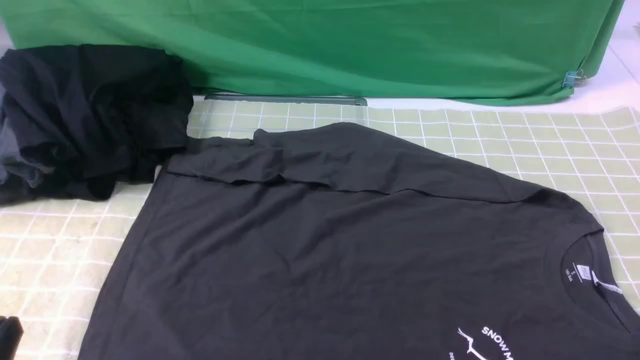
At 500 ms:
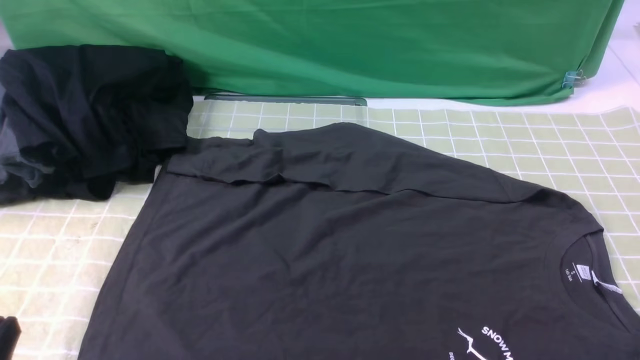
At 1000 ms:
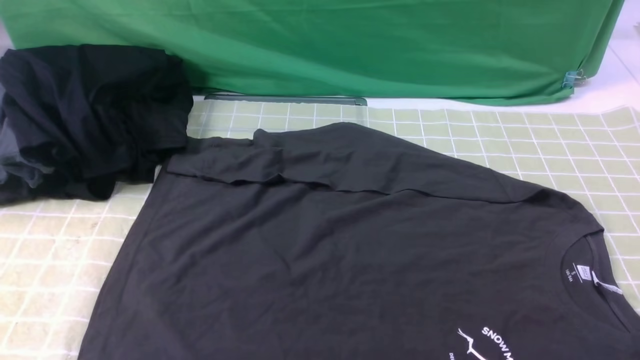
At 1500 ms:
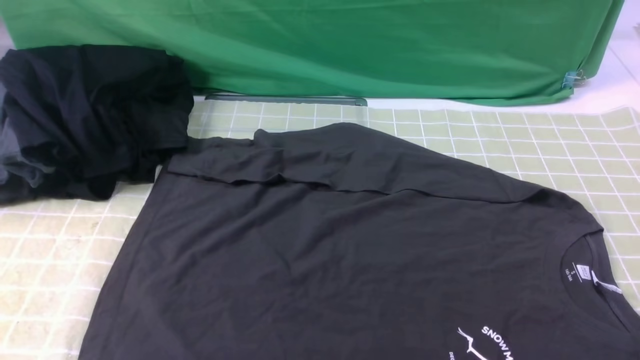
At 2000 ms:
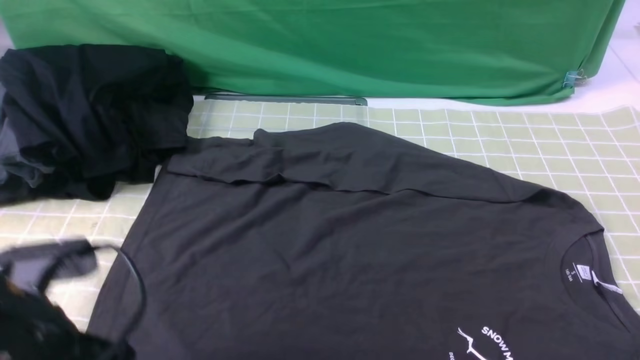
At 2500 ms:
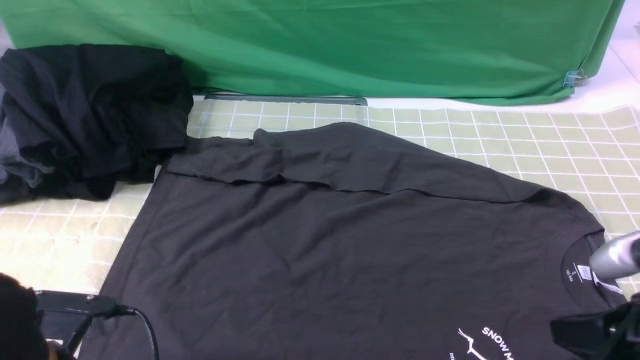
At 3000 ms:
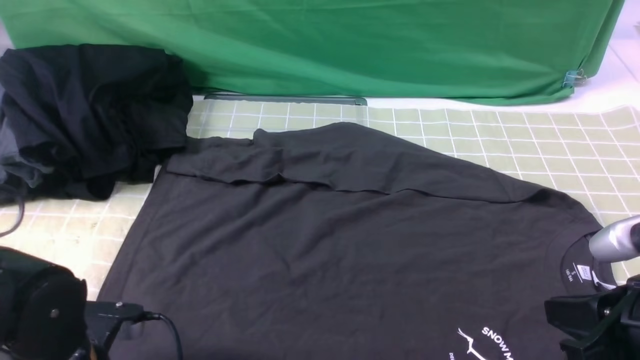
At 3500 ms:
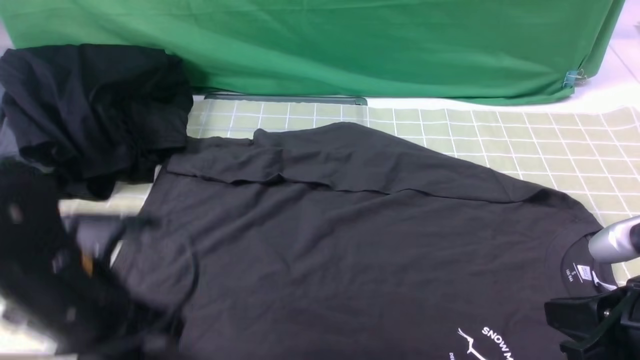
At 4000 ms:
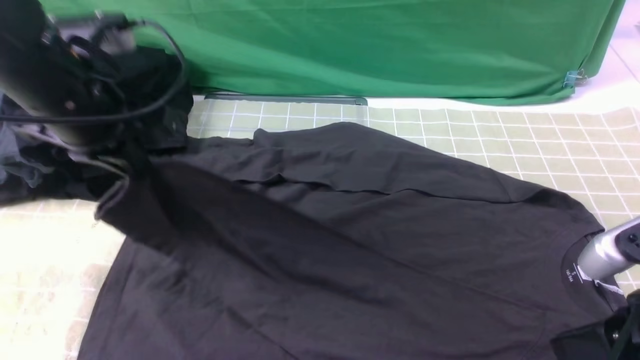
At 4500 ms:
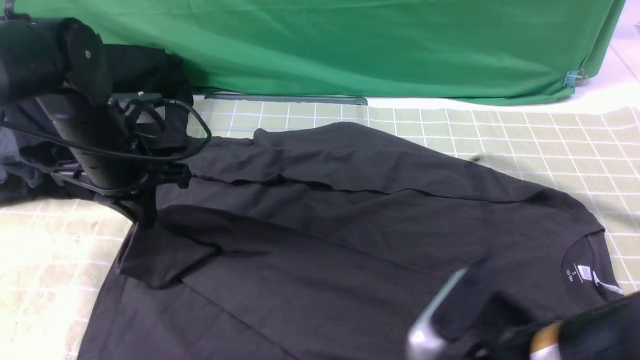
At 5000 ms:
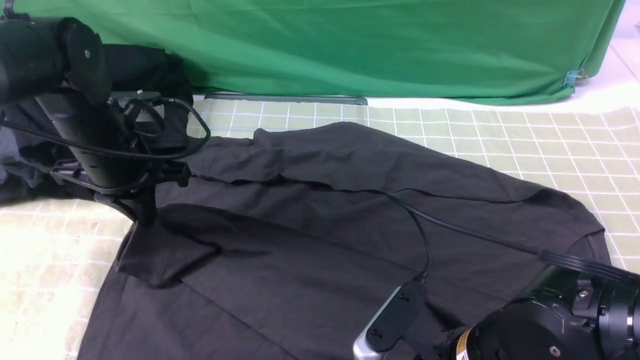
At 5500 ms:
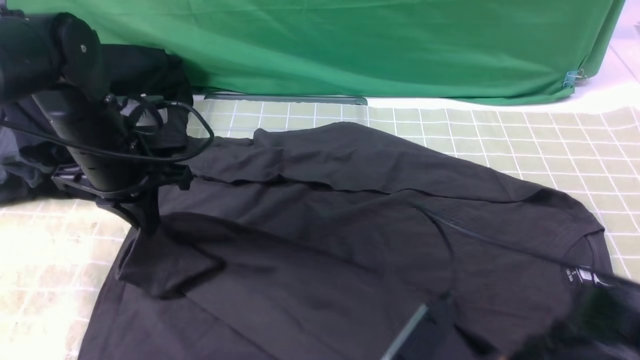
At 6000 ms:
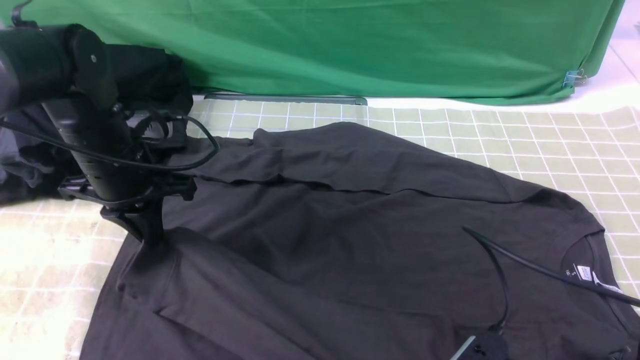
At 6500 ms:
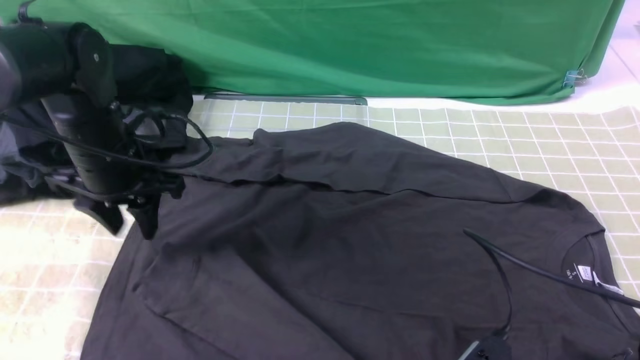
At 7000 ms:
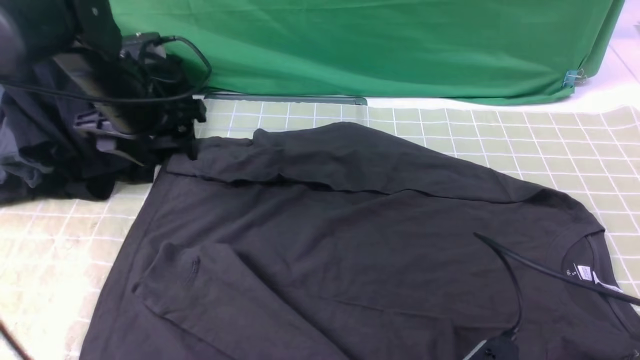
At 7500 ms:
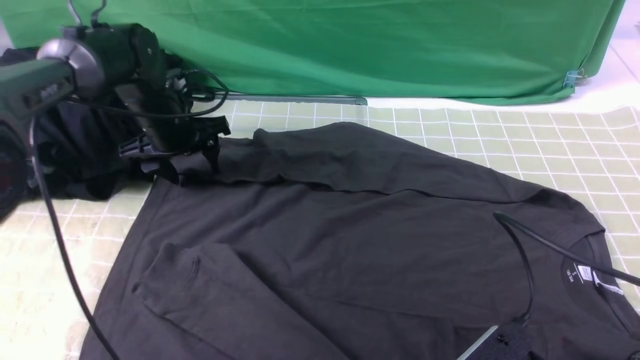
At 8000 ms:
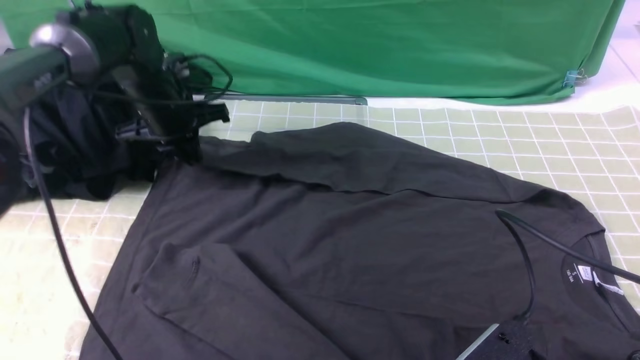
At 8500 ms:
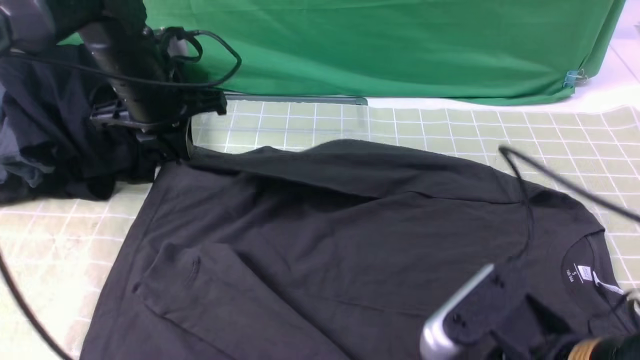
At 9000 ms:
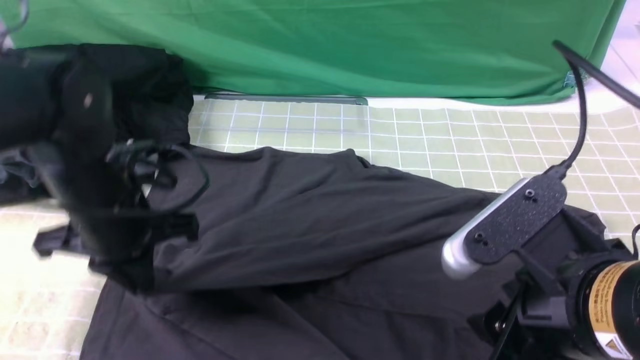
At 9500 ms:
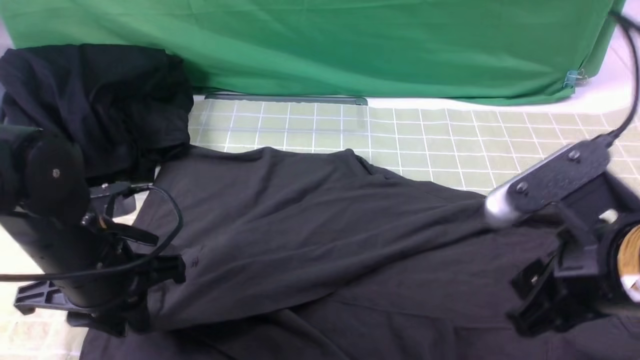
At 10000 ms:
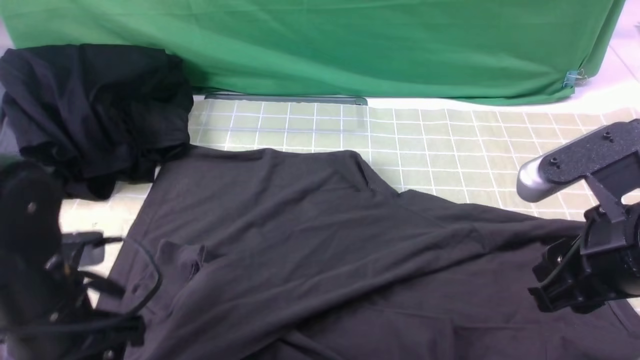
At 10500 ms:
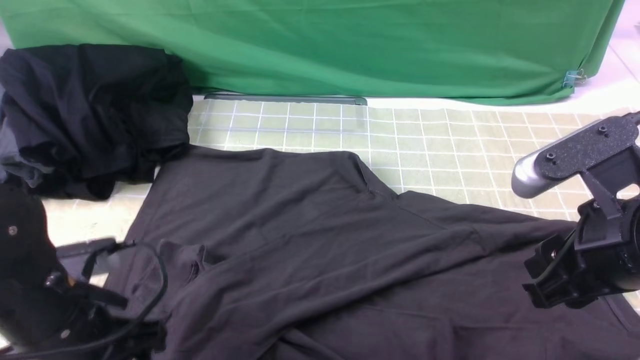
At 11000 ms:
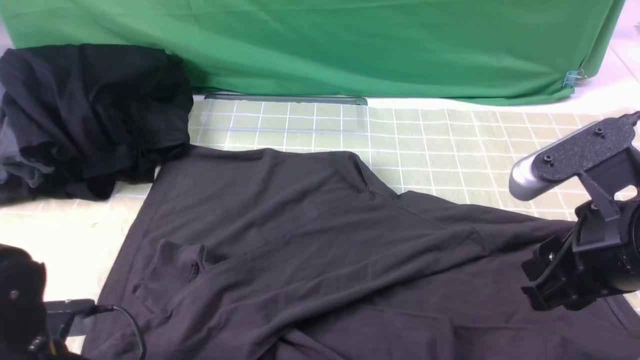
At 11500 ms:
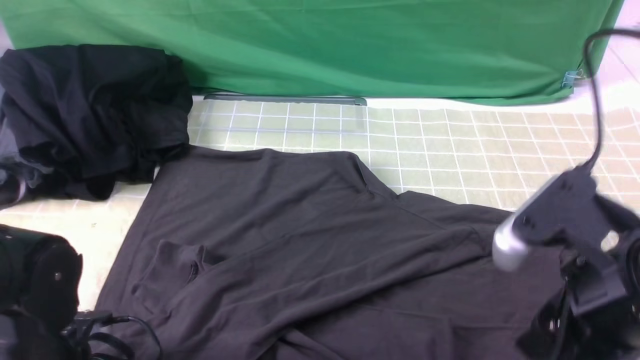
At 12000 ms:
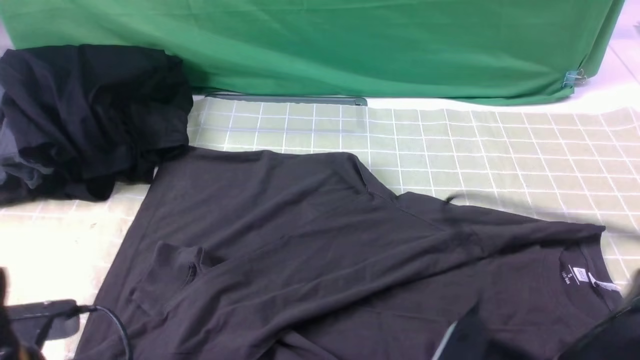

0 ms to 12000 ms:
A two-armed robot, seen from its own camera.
Step, 0 ms to 3000 ms: use the left arm to clamp the cuff closest to it.
Step, 3500 ms to 6500 ms: use the left arm to drag and place the cuff at the centered position on the left edge of the fabric.
Step, 7000 ms to 7500 ms: use the left arm to clamp the cuff farthest from it.
Step, 8000 ms to 10000 ms: use the left arm to drag and drop the cuff onto the cuff closest to the left arm.
0 ms to 2000 ms: The left gripper travels forward by some 10 cm, and reaches approximately 15 cm upward, then returns.
2000 ms to 4000 ms: The right gripper moves forward and to the left, roughly 10 cm; the left gripper travels forward by about 15 cm, and opens, then closes once more.
4000 ms to 6000 ms: The right gripper is displaced to the left and downward by roughly 10 cm, and opens and closes again; the left gripper shifts roughly 10 cm downward.
6000 ms to 8000 ms: The right gripper opens; the left gripper heads forward, covering about 10 cm, and opens, then closes again.
8000 ms to 10000 ms: The right gripper is displaced forward, upward and to the right by some 15 cm, while the left gripper travels backward by some 25 cm, and opens up.
10000 ms to 12000 ms: The left gripper moves backward, approximately 5 cm, and closes, while the right gripper moves downward, backward and to the left, approximately 15 cm.

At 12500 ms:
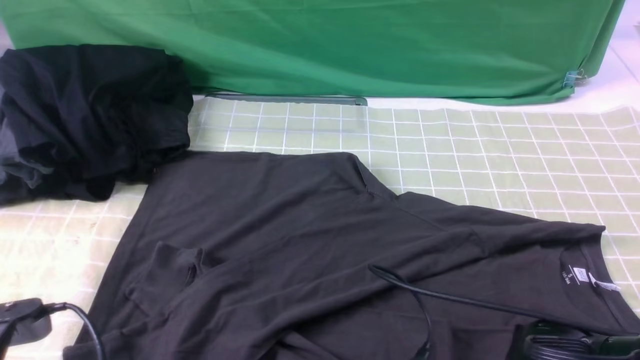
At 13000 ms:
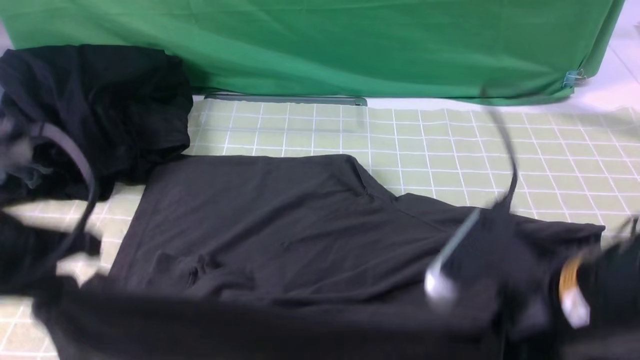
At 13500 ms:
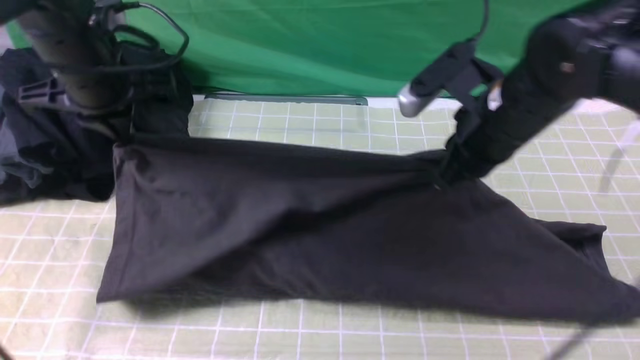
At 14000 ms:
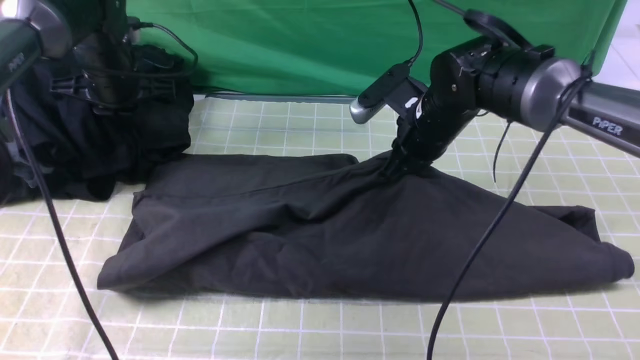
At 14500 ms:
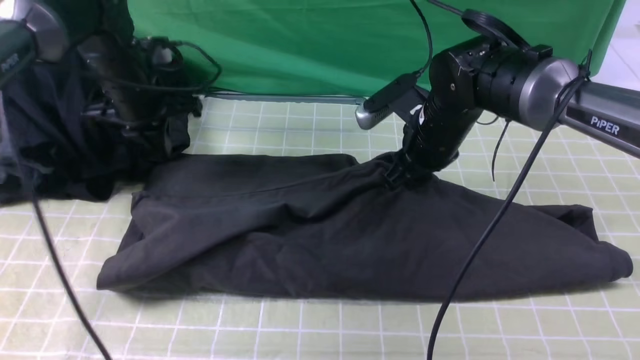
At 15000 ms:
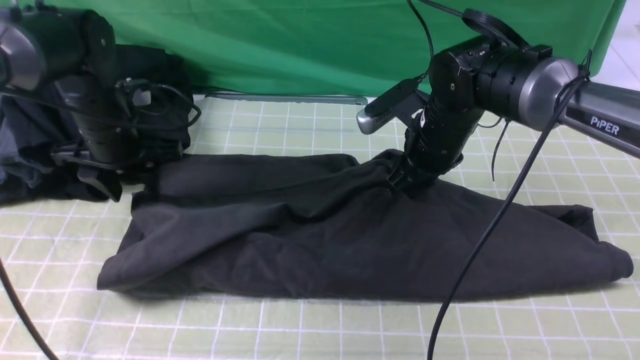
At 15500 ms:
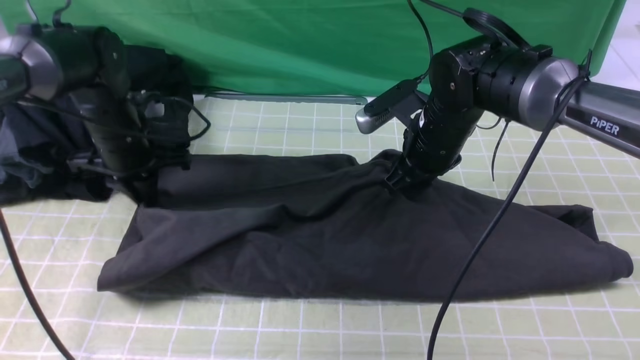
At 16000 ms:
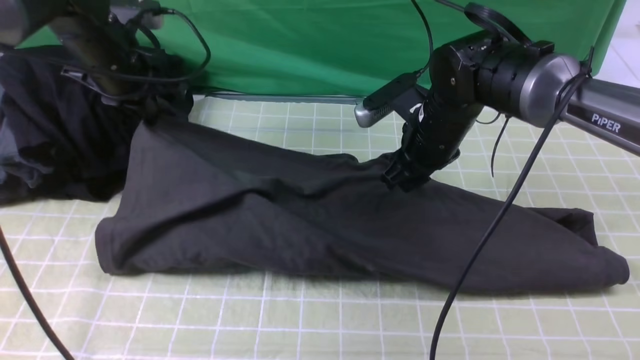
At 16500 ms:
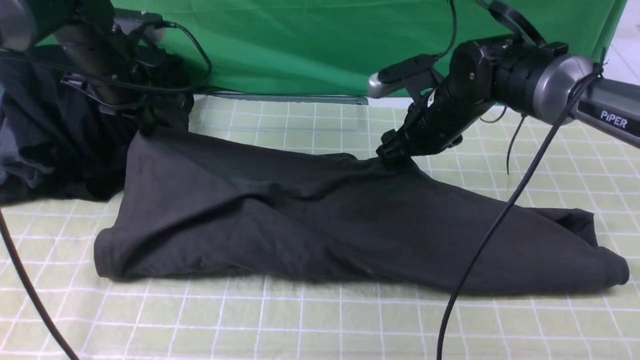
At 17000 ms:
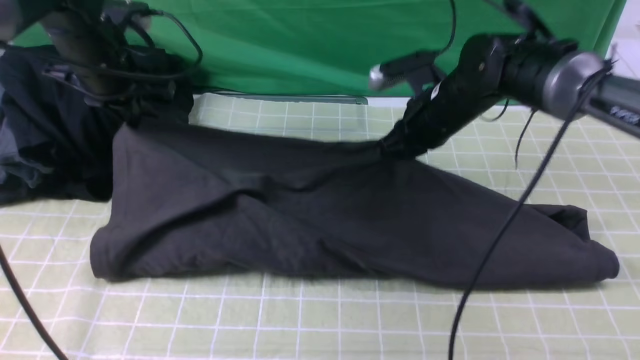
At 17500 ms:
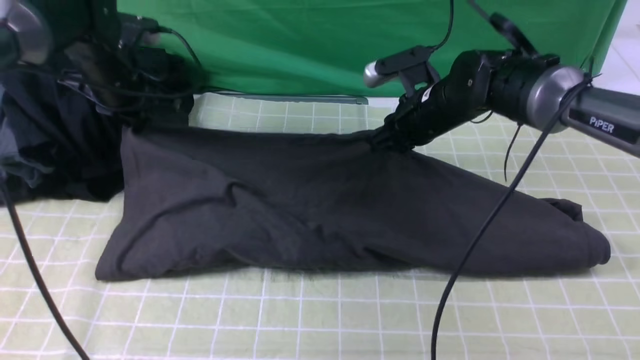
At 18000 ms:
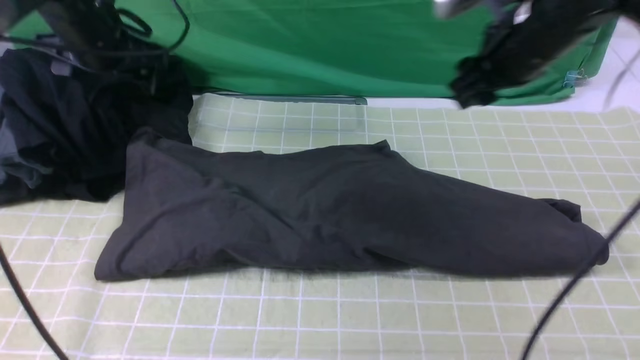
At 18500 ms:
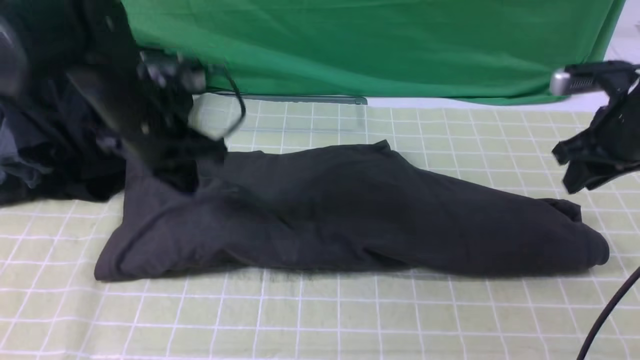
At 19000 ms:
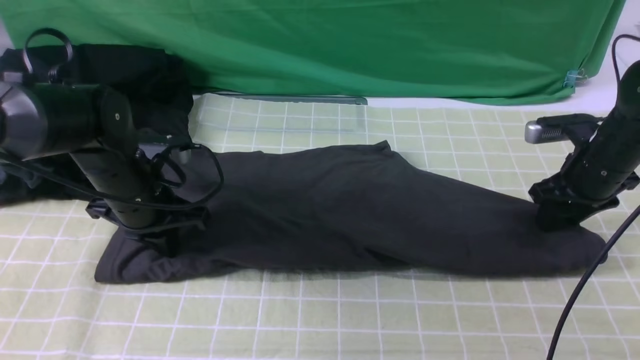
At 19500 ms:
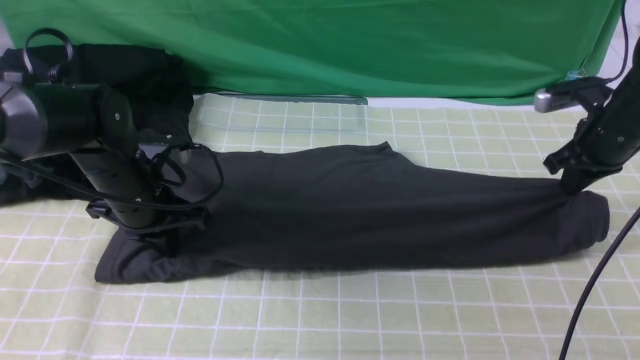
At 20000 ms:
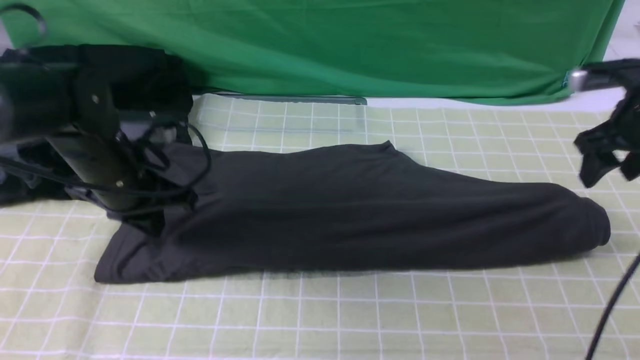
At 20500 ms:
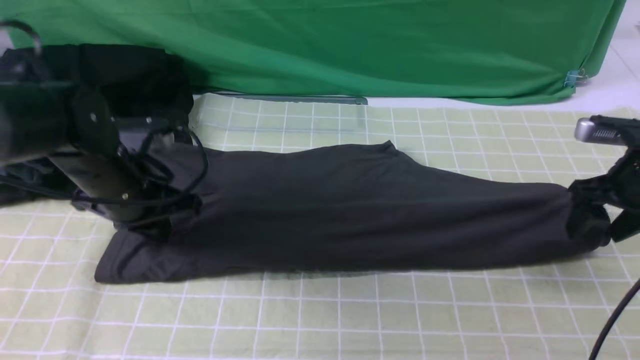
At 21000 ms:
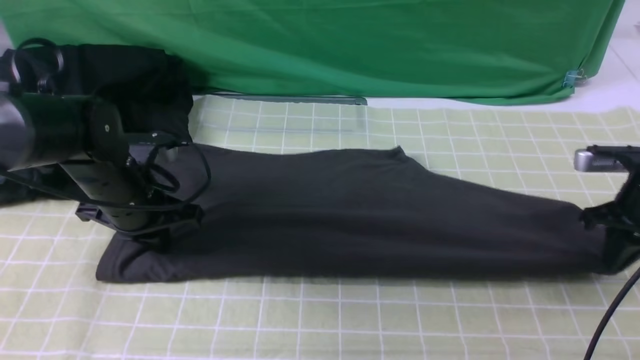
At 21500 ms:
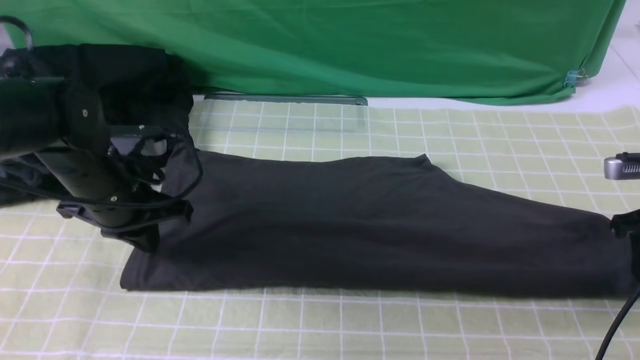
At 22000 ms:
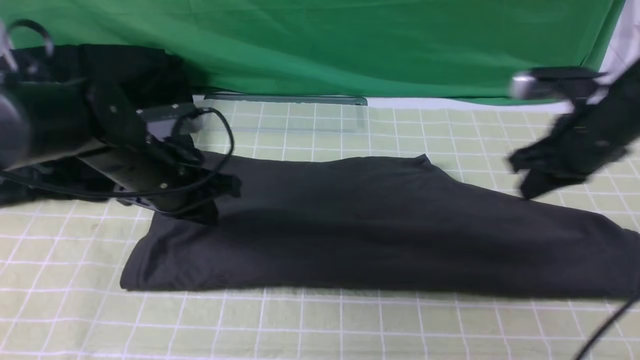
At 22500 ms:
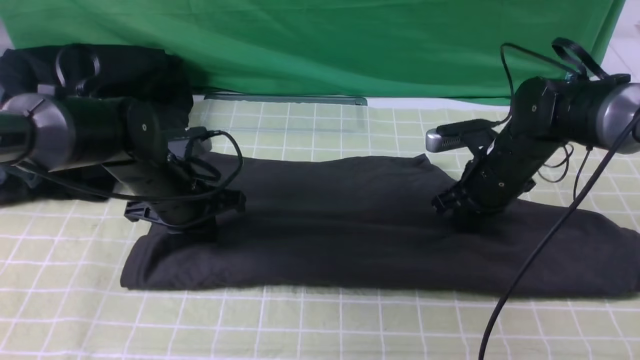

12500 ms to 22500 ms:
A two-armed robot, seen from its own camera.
Step, 12500 ms to 17500 ms: use both arms to drag the lower edge of the fabric forward and fold it over the upper edge.
12500 ms to 14500 ms: Both grippers move forward, about 35 cm. The right gripper closes and opens again.
14500 ms to 16500 ms: The left gripper opens and closes again. The right gripper opens.
16500 ms to 18500 ms: The right gripper moves to the right, approximately 20 cm, and closes up. The left gripper shifts approximately 10 cm backward, and opens, then closes again.
18500 ms to 20500 ms: The left gripper moves downward, about 5 cm, while the right gripper goes up and down, approximately 5 cm each way, reversing 2 times, and opens its fingers.
20500 ms to 22500 ms: The right gripper heads to the left, covering roughly 15 cm, and closes its fingers.
